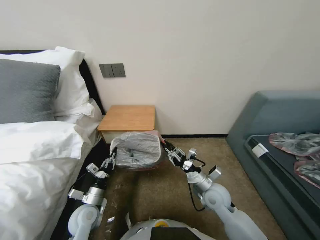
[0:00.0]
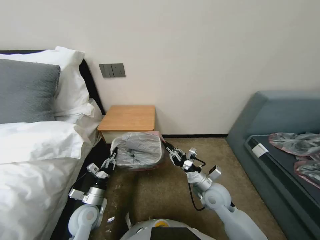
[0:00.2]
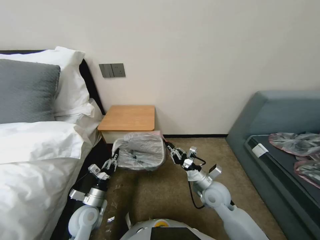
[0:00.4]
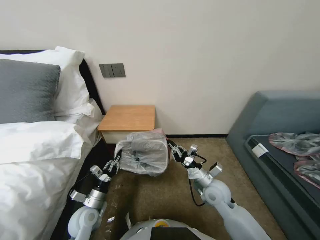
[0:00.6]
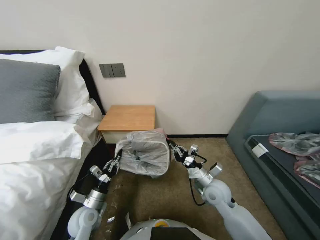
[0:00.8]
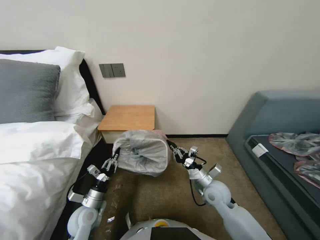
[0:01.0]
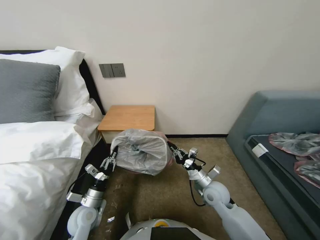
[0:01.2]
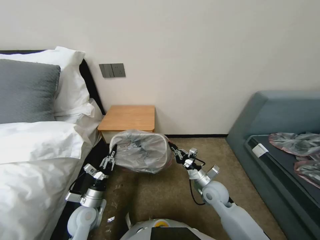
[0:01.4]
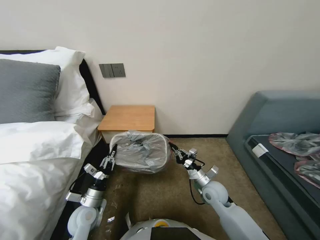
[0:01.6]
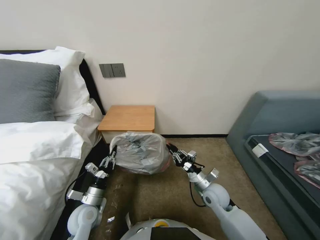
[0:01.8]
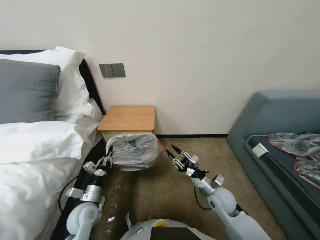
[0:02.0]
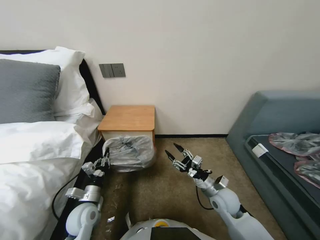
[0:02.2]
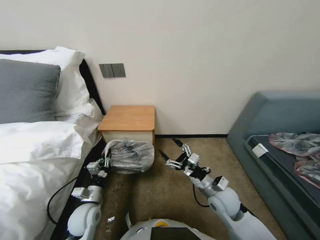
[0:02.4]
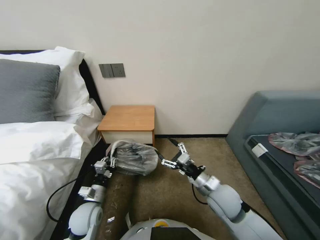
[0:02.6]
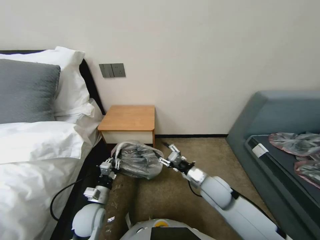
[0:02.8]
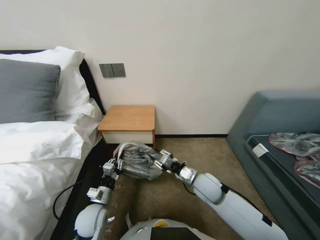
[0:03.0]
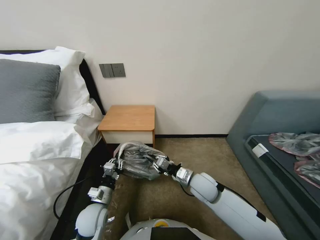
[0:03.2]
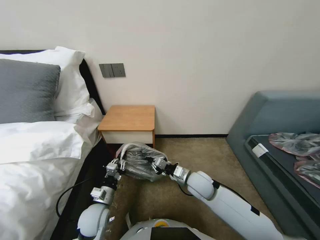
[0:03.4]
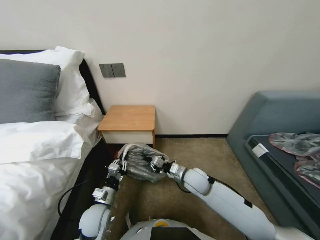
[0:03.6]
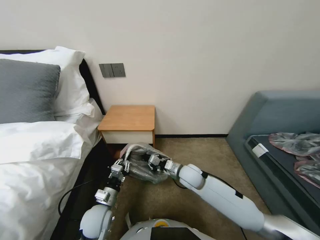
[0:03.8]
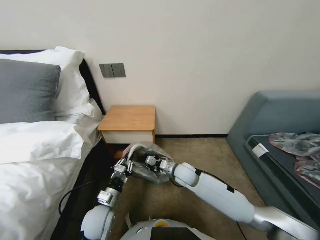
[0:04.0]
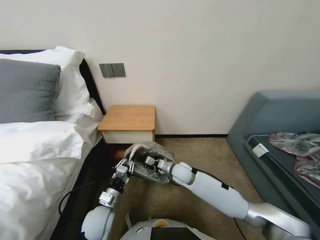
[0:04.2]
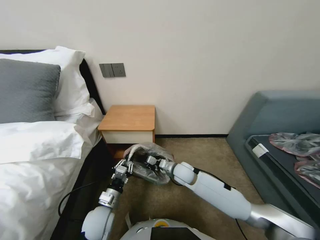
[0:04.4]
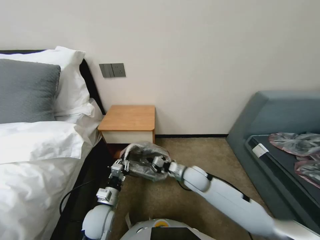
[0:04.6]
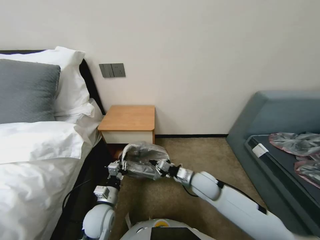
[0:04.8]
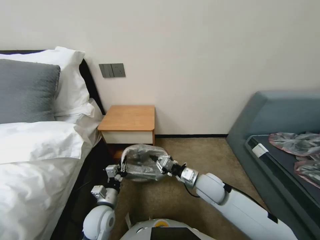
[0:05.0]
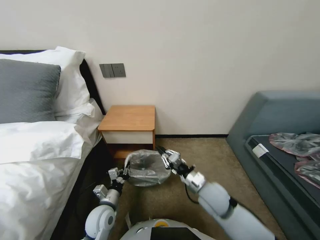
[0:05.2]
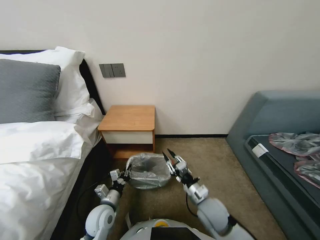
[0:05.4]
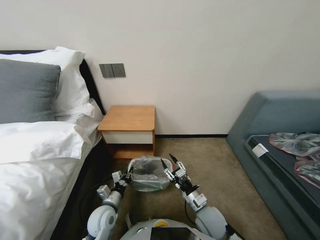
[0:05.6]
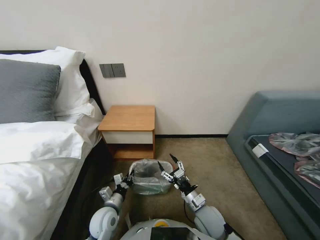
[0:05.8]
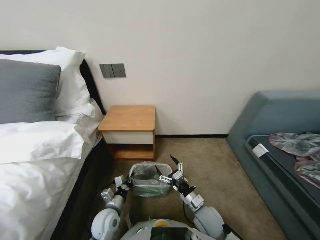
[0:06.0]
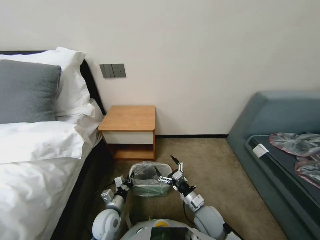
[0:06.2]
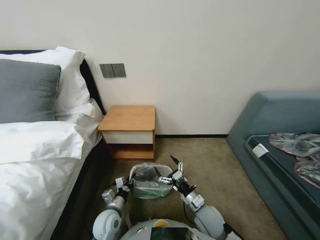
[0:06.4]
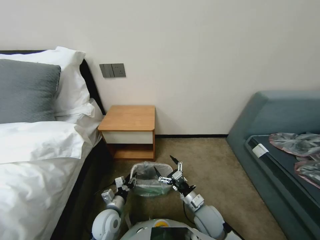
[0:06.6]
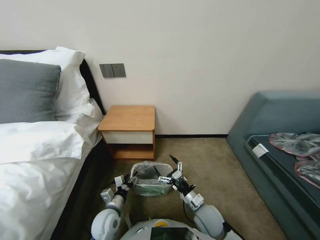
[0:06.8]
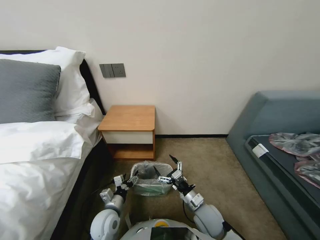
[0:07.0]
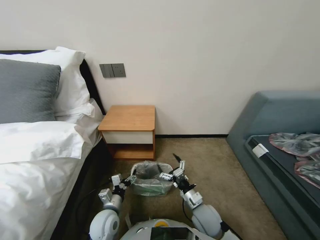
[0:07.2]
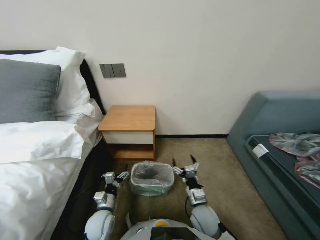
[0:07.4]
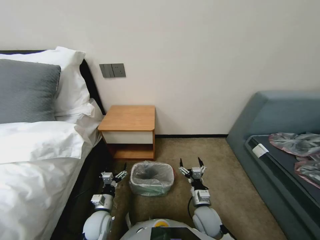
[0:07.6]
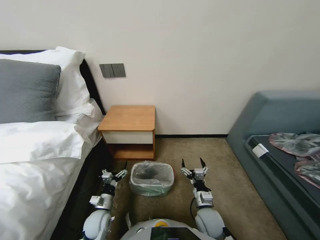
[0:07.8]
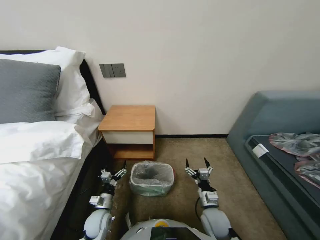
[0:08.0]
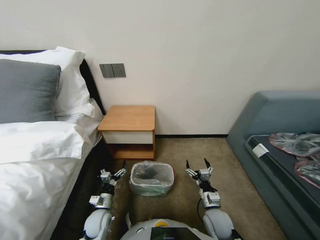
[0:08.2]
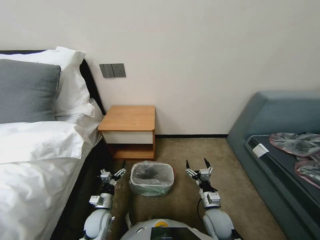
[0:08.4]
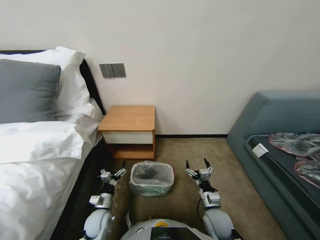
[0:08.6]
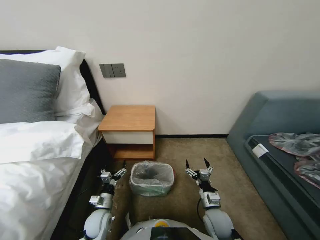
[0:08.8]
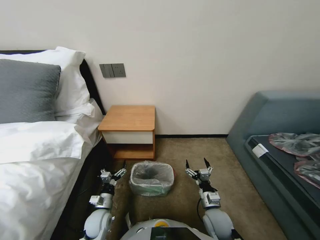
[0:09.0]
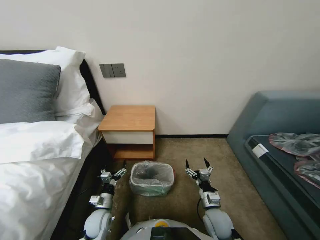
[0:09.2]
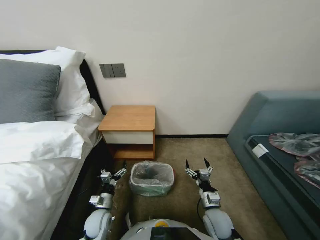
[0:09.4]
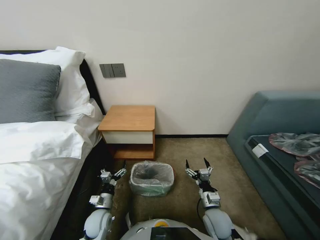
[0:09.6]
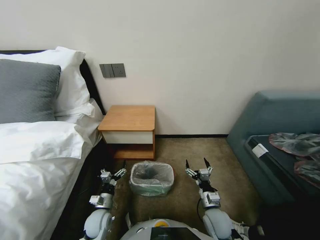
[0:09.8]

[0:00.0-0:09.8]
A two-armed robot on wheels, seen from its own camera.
Task of the whole recording: Pick up the garbage bag from the table and place it over the trash can.
0:00.0 to 0:01.4: The right gripper closes up.
0:01.4 to 0:02.8: The right gripper is displaced upward by about 5 cm, and opens.
0:02.8 to 0:04.2: The right gripper shifts some 15 cm forward, to the left and downward, and closes.
0:04.2 to 0:05.6: The right gripper heads backward and to the right, covering roughly 15 cm, and opens up.
0:05.6 to 0:07.0: The left gripper opens its fingers. The right gripper opens its fingers.
0:07.0 to 0:08.4: The right gripper moves roughly 5 cm; the left gripper heads downward and to the left, covering roughly 10 cm.
0:08.4 to 0:09.8: The two grippers keep their place.
